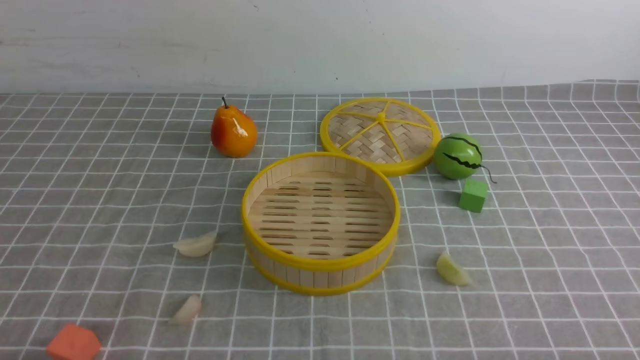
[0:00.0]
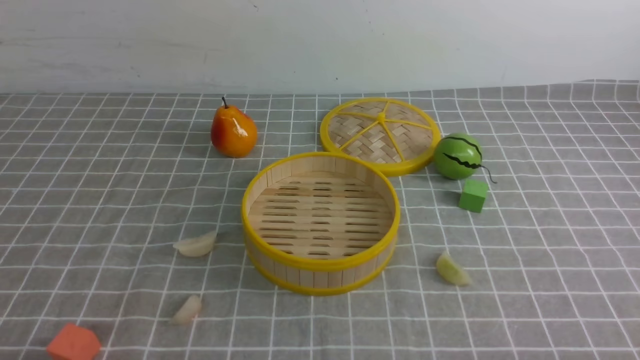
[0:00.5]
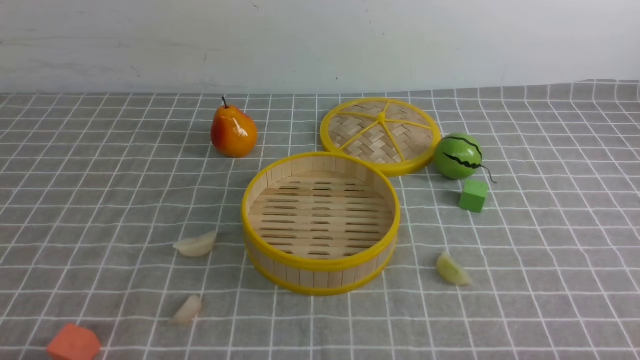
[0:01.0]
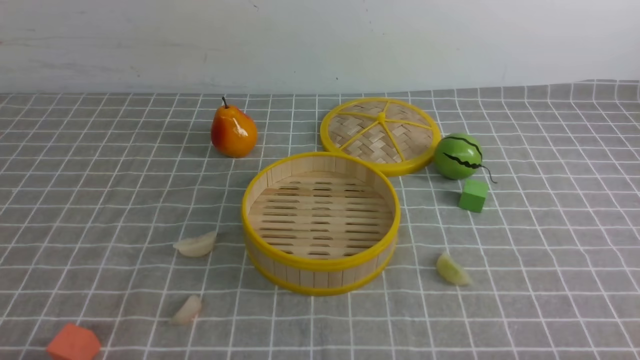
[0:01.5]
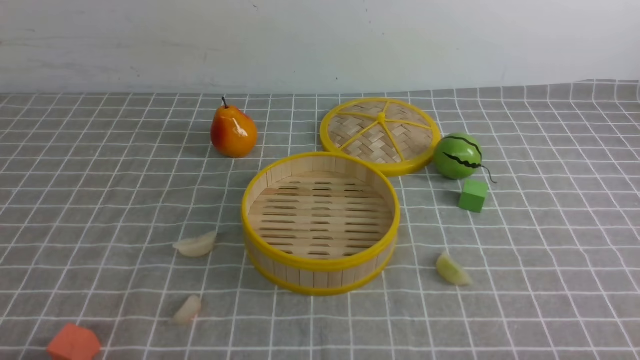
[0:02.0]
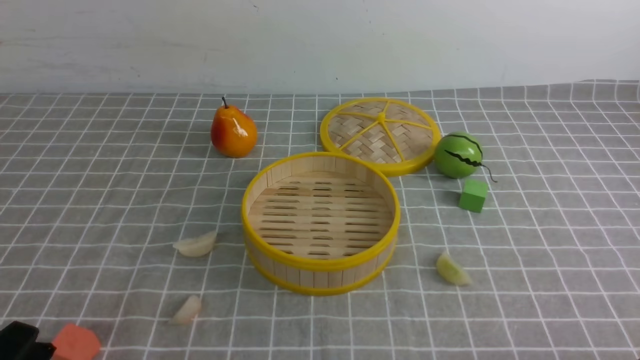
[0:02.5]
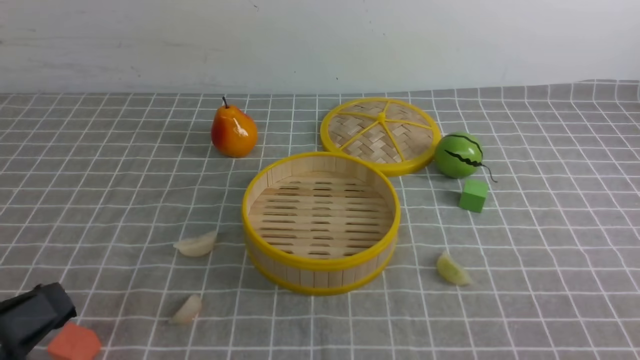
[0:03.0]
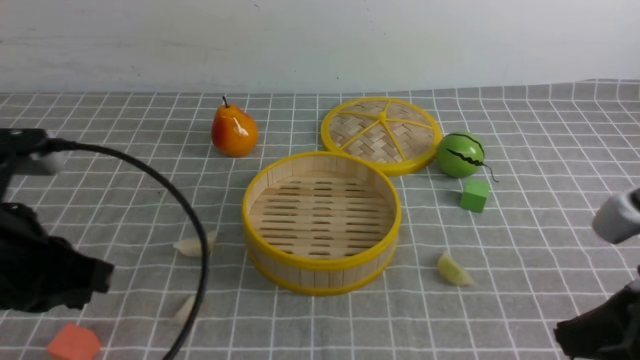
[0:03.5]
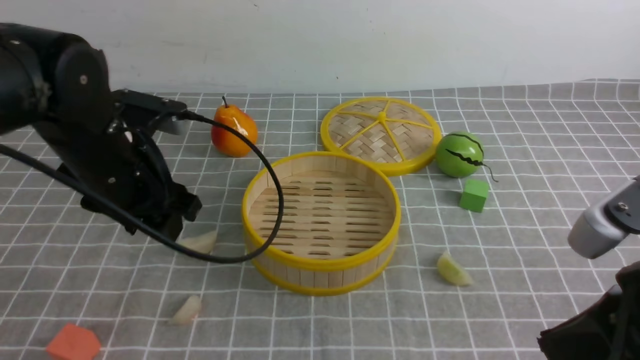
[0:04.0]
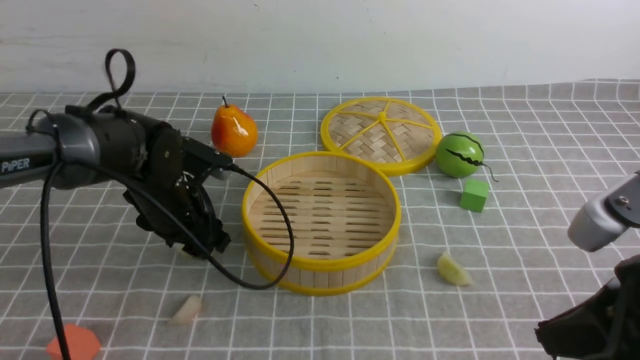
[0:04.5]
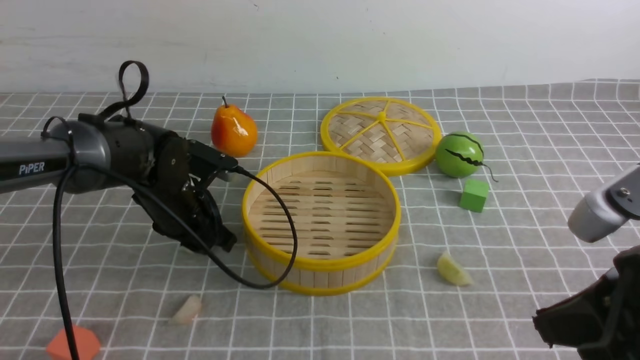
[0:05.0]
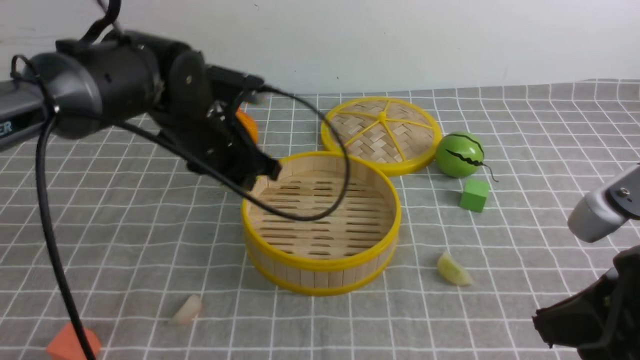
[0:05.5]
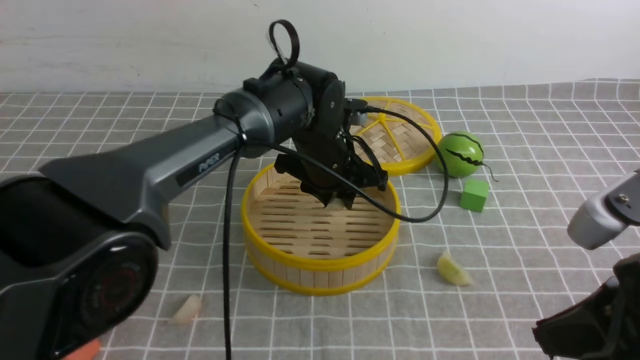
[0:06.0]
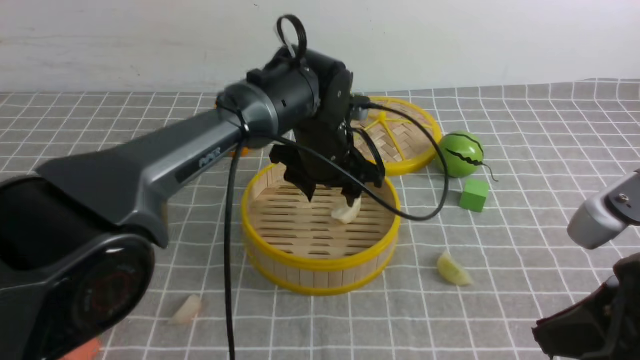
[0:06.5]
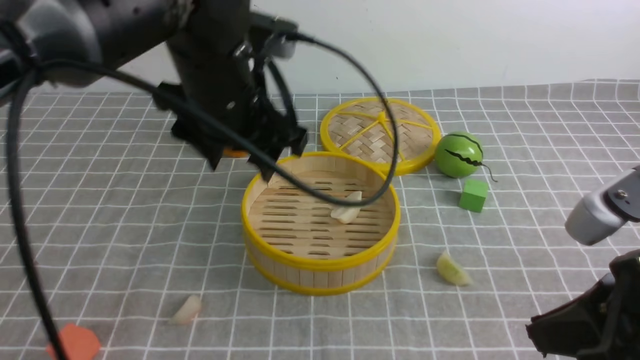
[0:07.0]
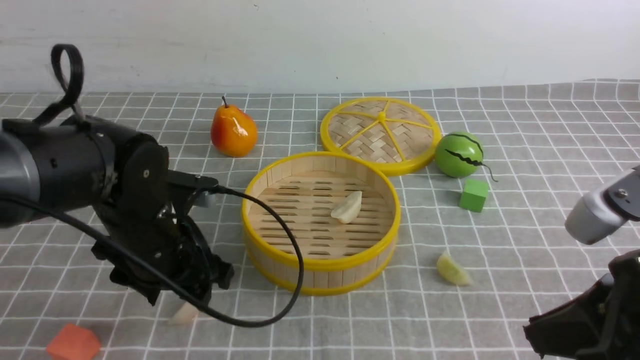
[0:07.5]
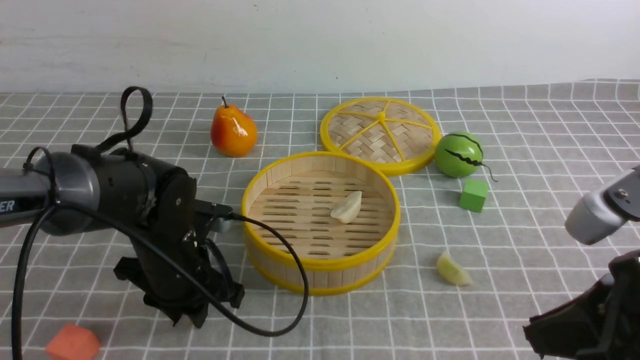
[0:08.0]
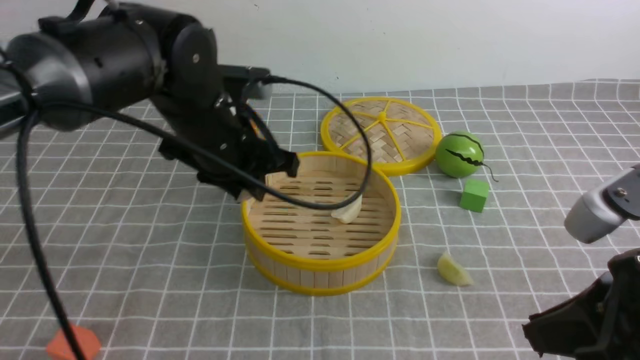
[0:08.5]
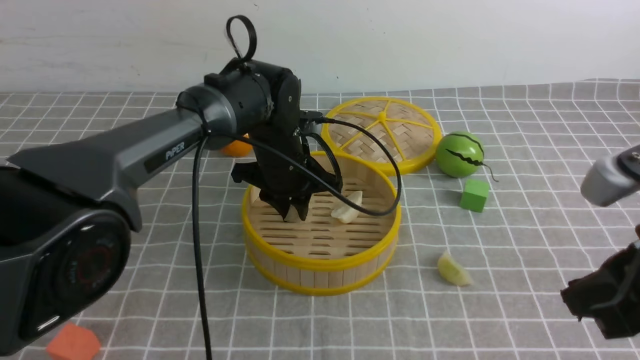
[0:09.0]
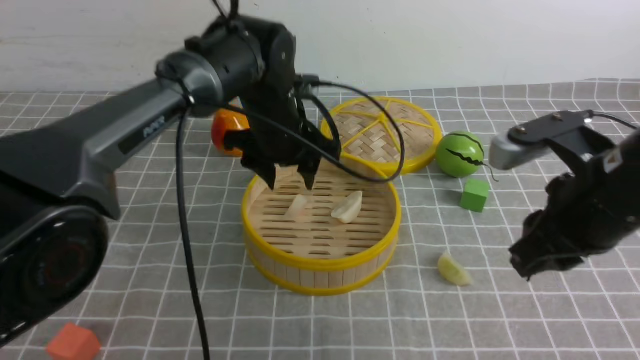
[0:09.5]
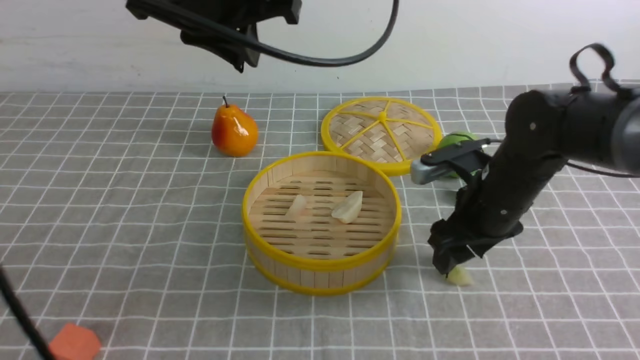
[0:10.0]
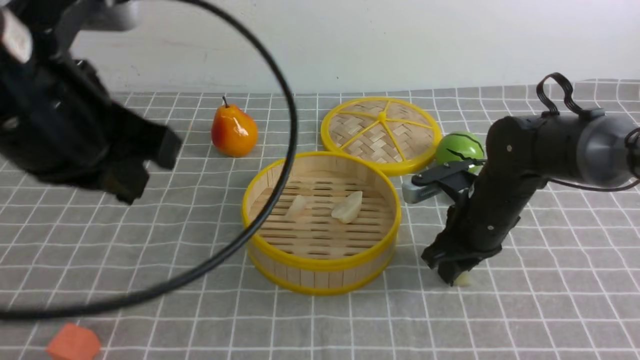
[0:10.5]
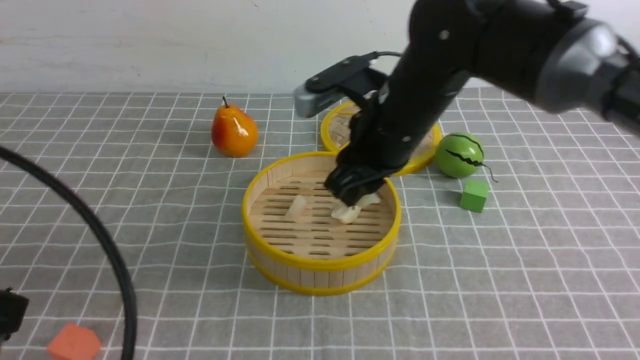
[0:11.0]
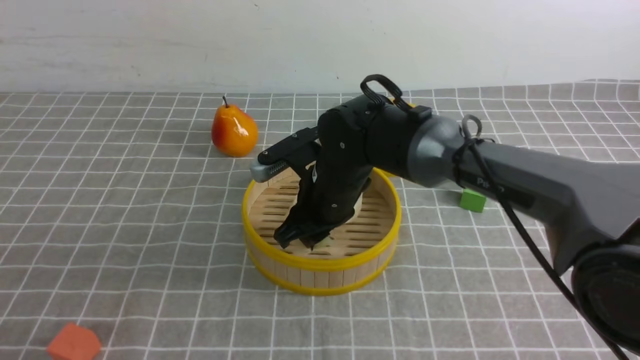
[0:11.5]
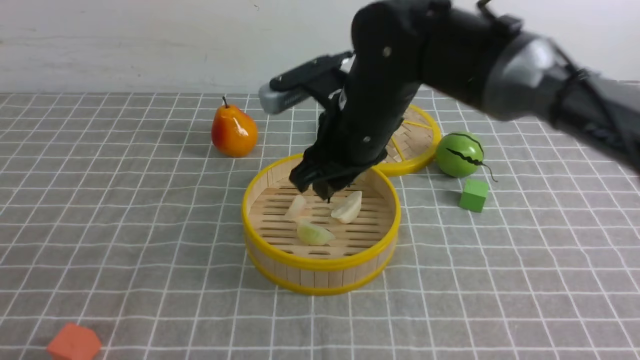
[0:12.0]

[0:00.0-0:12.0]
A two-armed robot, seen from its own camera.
Task of the whole recording: put the dumplings into the steamer on the table with the grey tablecloth.
Step, 0:00.0 to 0:05.0: use the left arm to grab a dumpling.
Step, 0:05.5 to 0:06.5: use the left arm to put the dumpling into the steamer.
Step, 0:07.0 to 0:08.0: use the left arm to grab a dumpling.
Step, 0:08.5 to 0:09.5: use the left arm to put the dumpling into the steamer.
Step, 0:10.0 to 0:10.5: use the right arm to grab a dumpling.
Step, 0:11.0 to 0:11.5: use the right arm to put the dumpling into the steamer.
0:02.0 to 0:04.0: The right gripper shifts about 20 cm upward, forward and to the left, and closes up. The left gripper is displaced forward by roughly 25 cm, and closes, then reopens.
0:04.0 to 0:06.0: The left gripper moves to the right and forward, approximately 20 cm.
0:06.0 to 0:08.0: The left gripper goes about 20 cm to the left and backward, and opens and closes again.
0:08.0 to 0:10.0: The left gripper goes up and down, approximately 25 cm each way, reversing 2 times. The right gripper travels forward and downward by approximately 25 cm, and opens.
0:10.0 to 0:12.0: The left gripper moves backward and to the left, about 35 cm; the right gripper travels to the left and upward by approximately 20 cm, and closes.

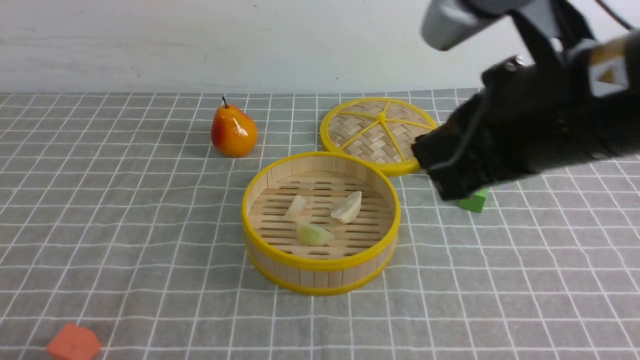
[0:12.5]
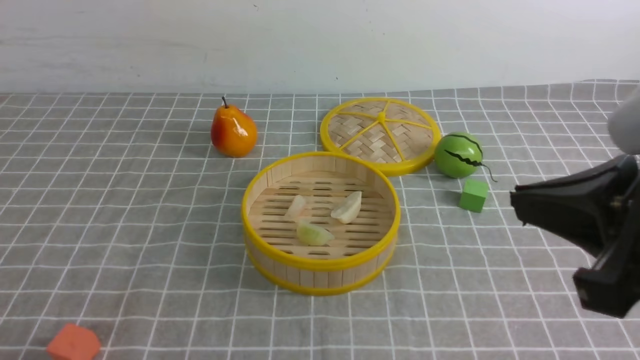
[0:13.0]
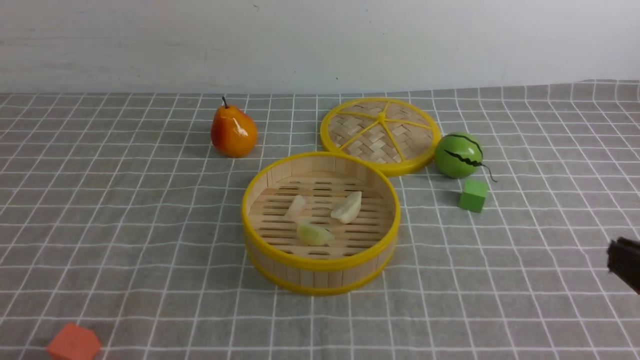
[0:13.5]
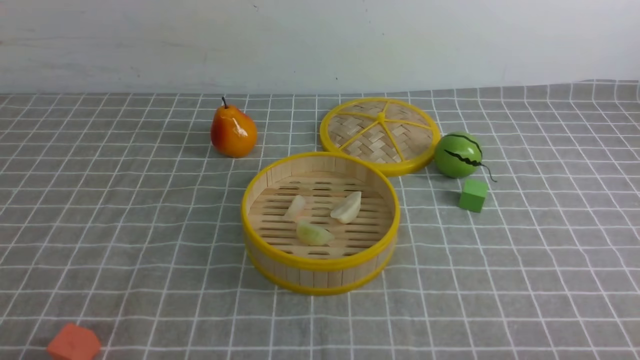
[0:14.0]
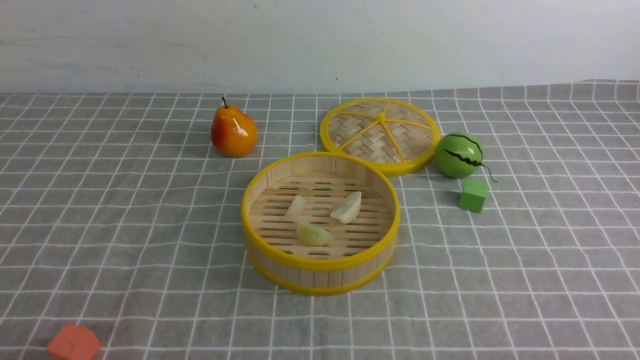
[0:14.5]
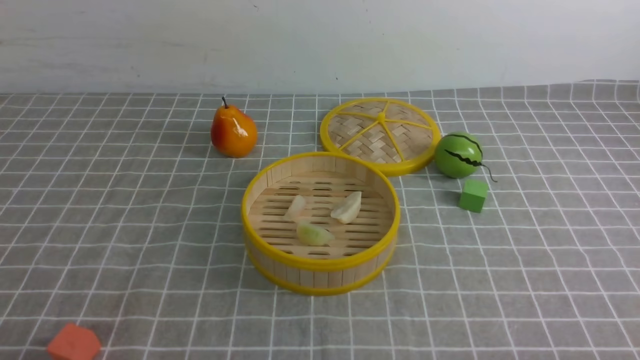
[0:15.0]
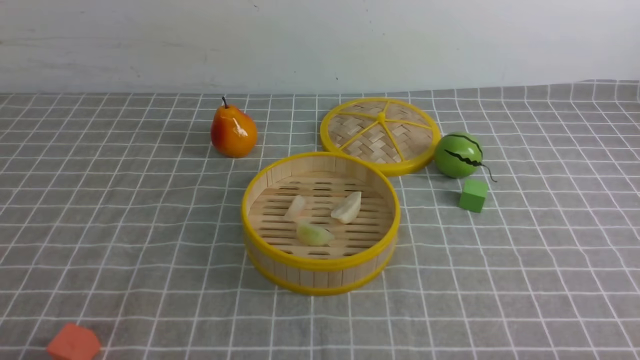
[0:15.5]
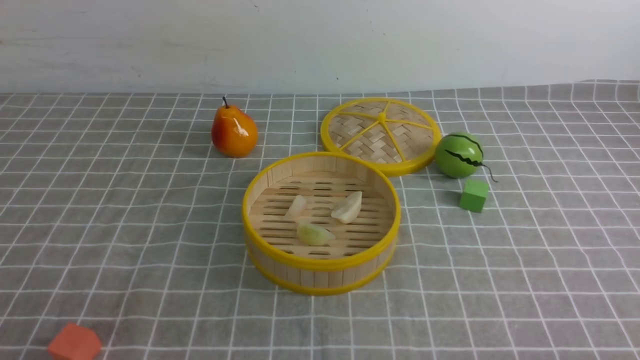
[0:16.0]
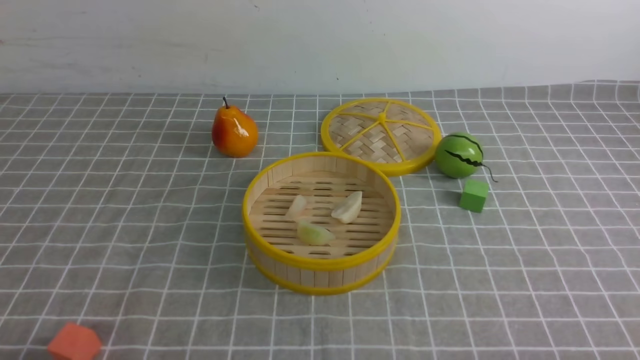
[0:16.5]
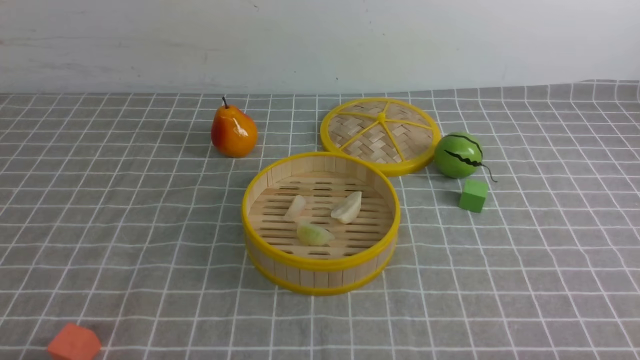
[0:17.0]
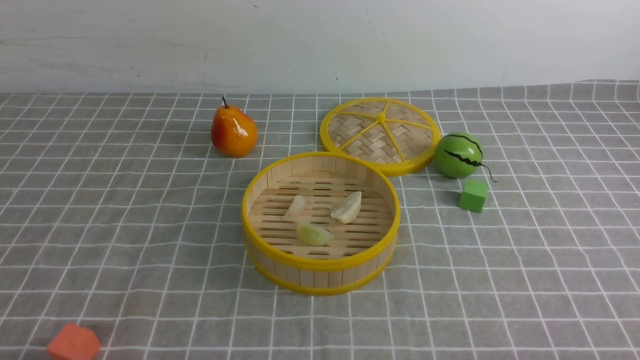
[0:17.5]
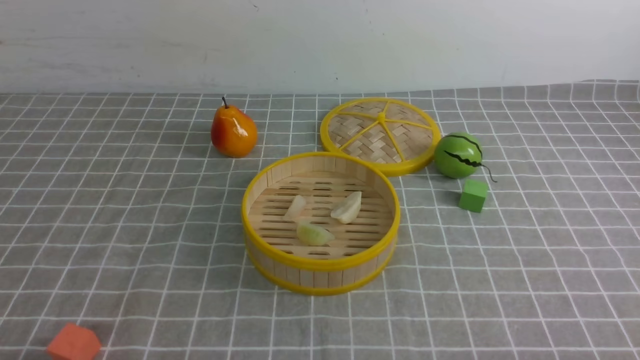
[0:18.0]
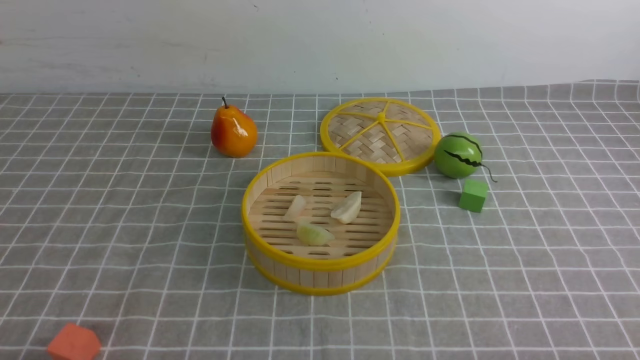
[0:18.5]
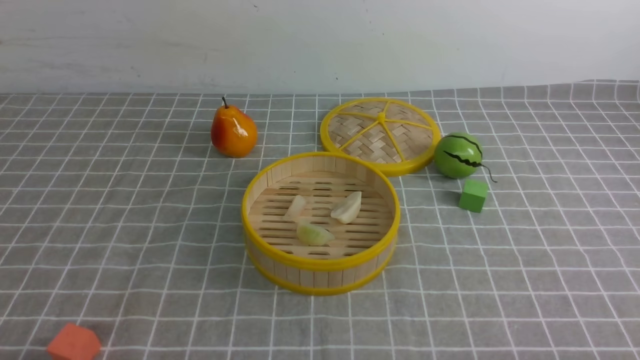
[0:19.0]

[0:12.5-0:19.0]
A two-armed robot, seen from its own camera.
Task of the whole recording: put the dumplings into the steamer on the table with the grey tablecloth.
0:12.5 to 0:14.5: The right gripper moves downward, to the right and backward, approximately 30 cm.
0:17.0 to 0:19.0: Both grippers stay about where they are.
